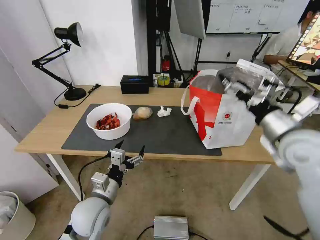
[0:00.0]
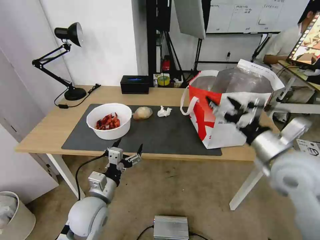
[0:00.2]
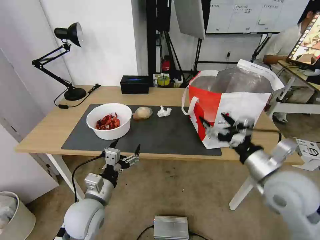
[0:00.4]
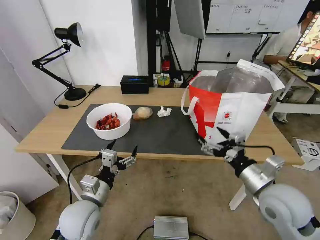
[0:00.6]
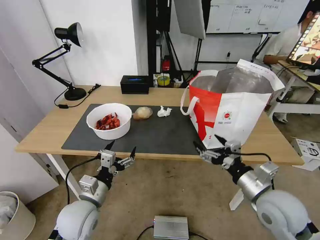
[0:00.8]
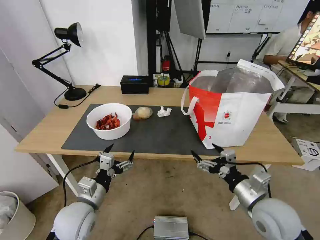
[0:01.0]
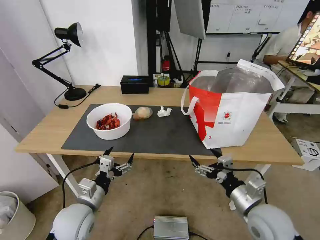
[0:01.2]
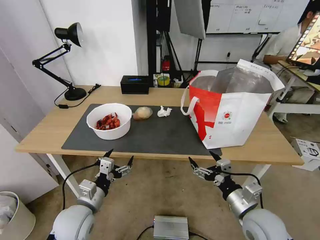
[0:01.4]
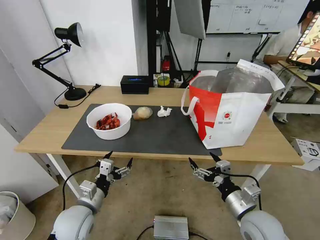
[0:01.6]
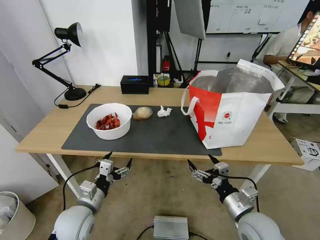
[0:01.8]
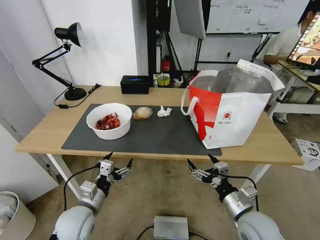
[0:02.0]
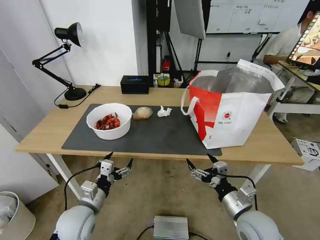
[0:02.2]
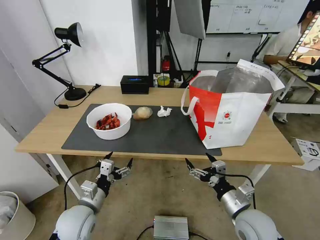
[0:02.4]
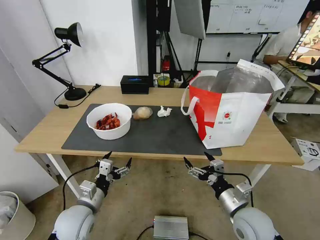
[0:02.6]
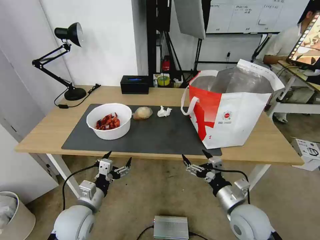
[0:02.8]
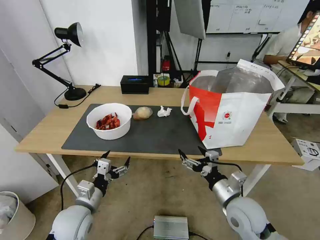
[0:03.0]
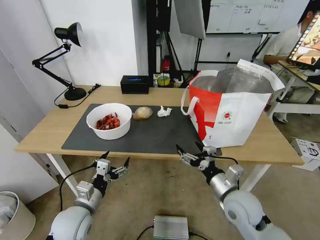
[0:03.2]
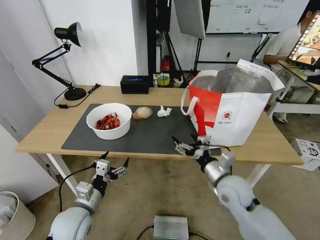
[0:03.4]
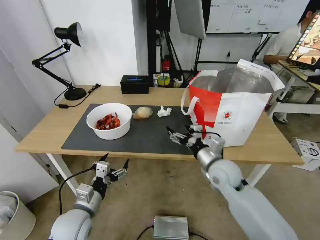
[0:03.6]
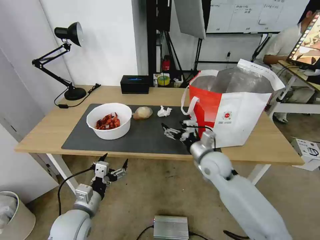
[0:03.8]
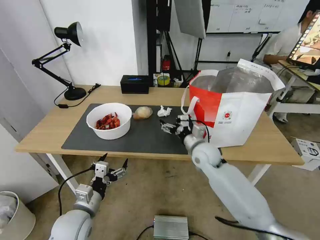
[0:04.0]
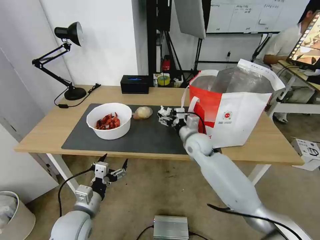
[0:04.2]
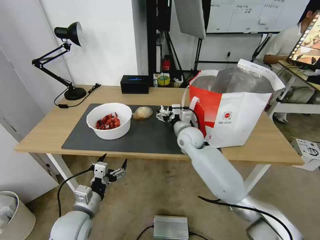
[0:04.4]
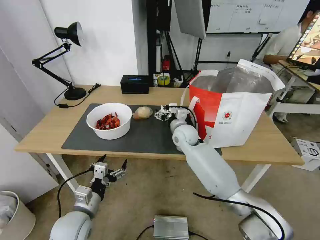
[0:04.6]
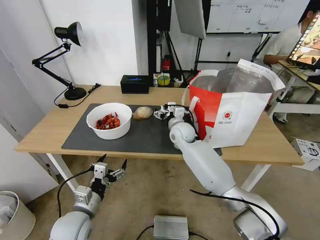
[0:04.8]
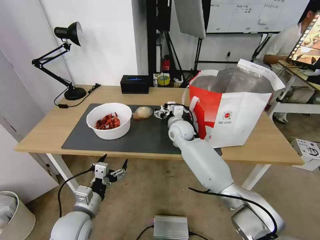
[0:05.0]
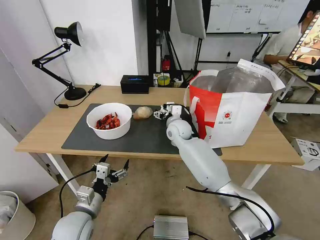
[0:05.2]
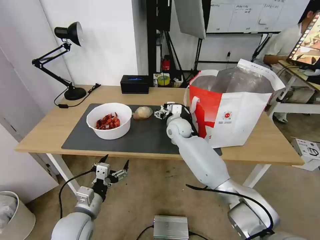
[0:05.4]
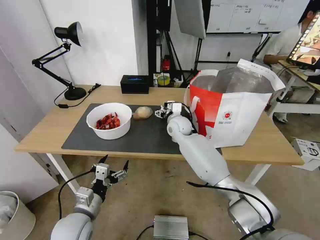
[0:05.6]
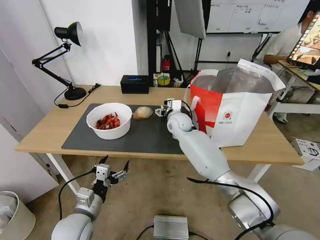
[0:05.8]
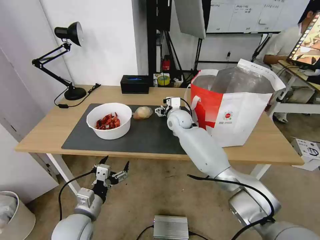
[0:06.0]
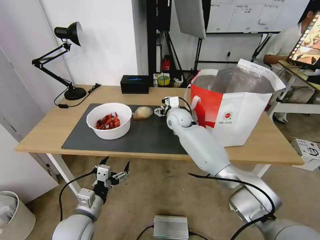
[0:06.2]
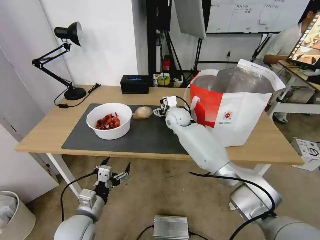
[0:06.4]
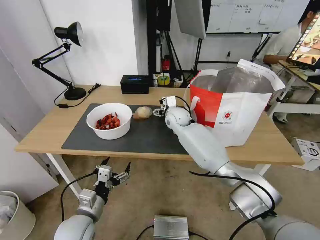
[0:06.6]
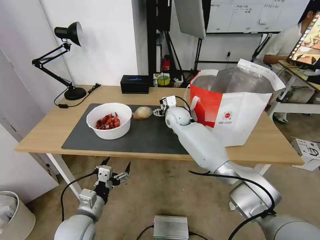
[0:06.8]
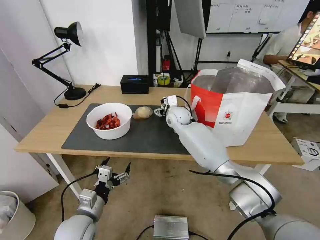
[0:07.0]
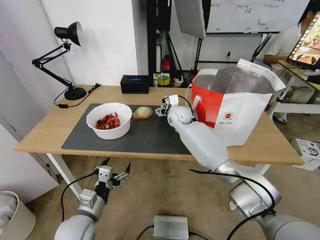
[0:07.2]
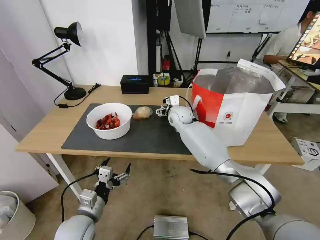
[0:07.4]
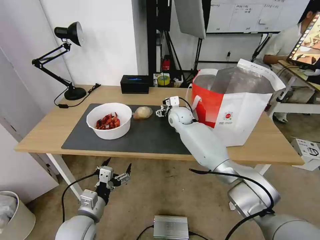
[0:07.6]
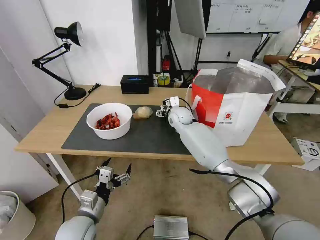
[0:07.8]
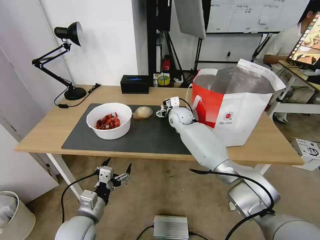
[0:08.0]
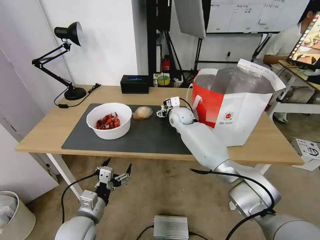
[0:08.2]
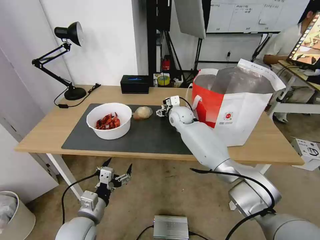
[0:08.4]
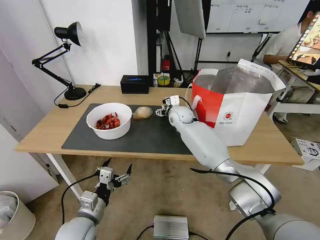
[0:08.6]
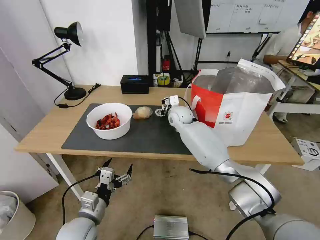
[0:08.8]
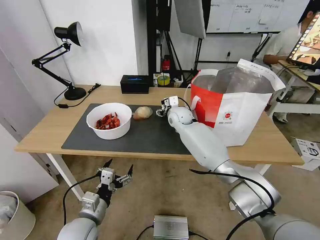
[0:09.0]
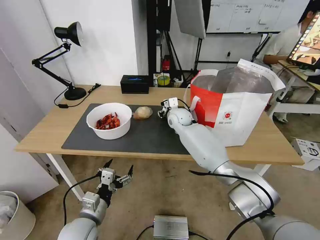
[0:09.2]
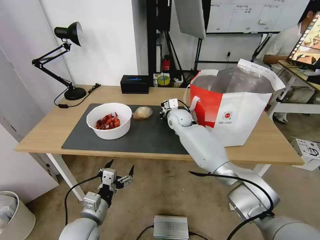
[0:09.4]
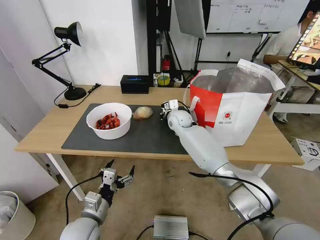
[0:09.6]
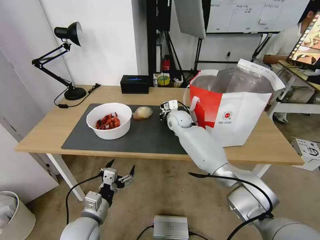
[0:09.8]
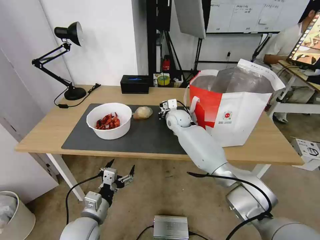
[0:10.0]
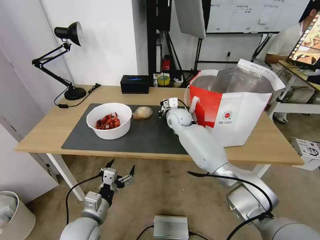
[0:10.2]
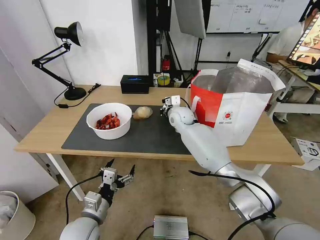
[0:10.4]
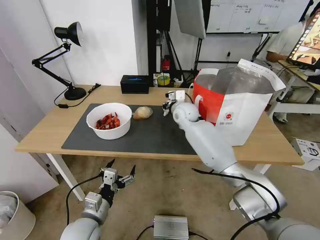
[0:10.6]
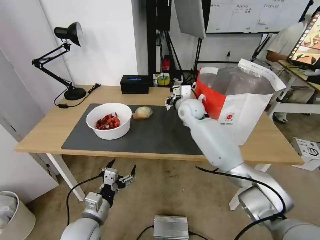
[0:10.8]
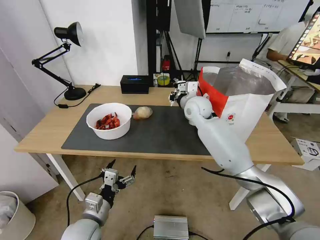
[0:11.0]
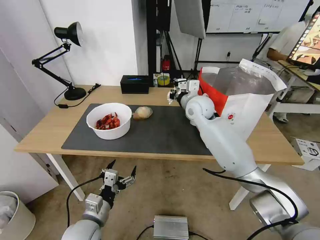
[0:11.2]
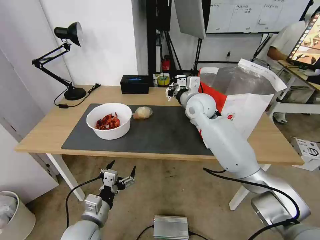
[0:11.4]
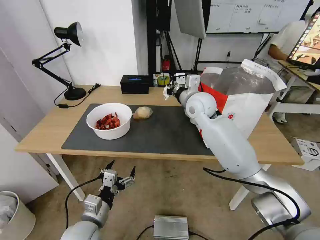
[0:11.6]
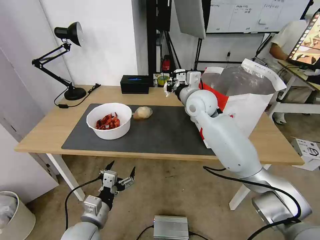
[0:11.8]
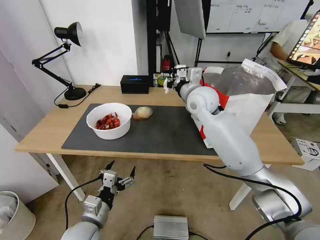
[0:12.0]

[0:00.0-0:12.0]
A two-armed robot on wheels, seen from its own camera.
Task of the whole recording: Pick up the trash from the table and place it into the takeout bag.
0:00.0 to 0:01.6: The left gripper moves approximately 5 cm; the right gripper is displaced downward and backward by about 25 cm.
0:01.6 to 0:03.0: The grippers stay close to where they were, moving slightly.
0:03.0 to 0:04.4: The right gripper goes roughly 30 cm forward and to the left.
0:04.4 to 0:06.0: The right gripper heads forward, covering about 10 cm.
0:06.0 to 0:07.6: The grippers stay close to where they were, moving slightly.
0:07.6 to 0:09.0: Neither gripper changes place.
0:09.0 to 0:10.4: The right gripper closes up.
0:10.4 to 0:12.0: The right gripper goes some 15 cm upward and backward.

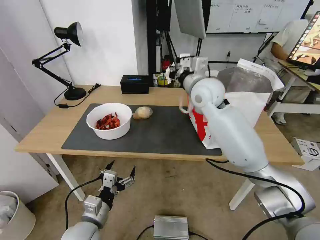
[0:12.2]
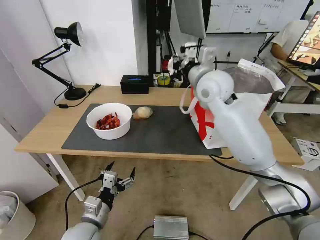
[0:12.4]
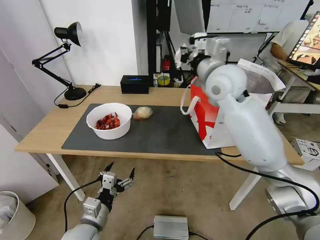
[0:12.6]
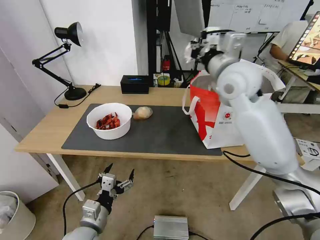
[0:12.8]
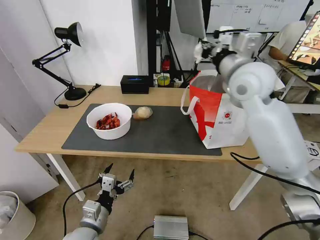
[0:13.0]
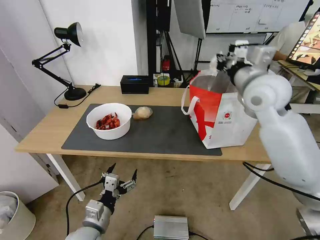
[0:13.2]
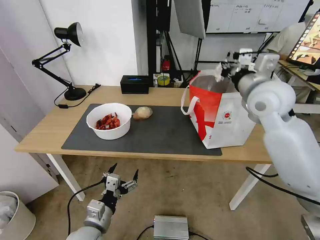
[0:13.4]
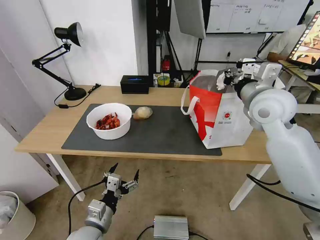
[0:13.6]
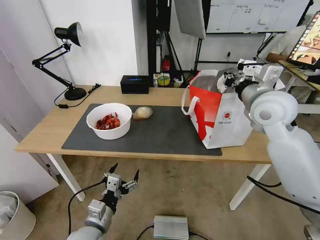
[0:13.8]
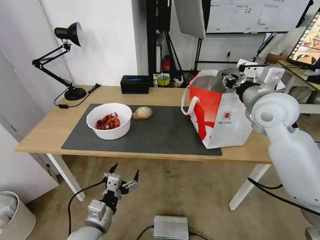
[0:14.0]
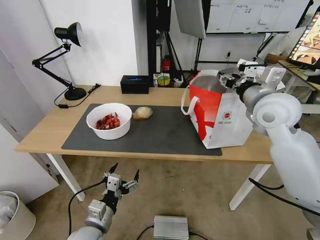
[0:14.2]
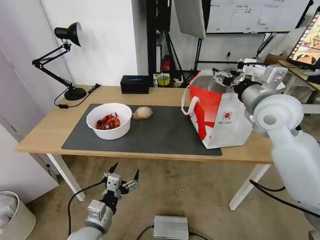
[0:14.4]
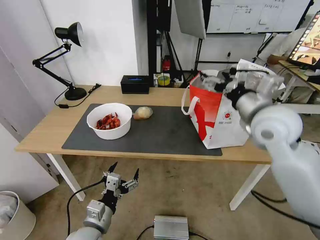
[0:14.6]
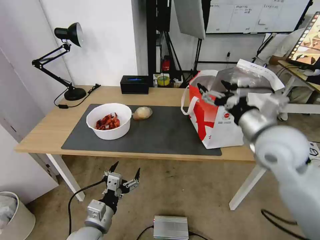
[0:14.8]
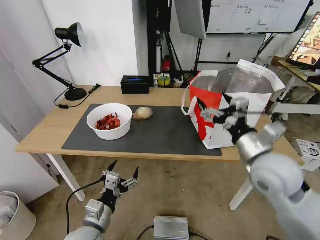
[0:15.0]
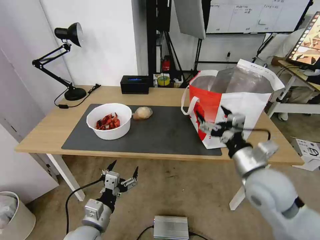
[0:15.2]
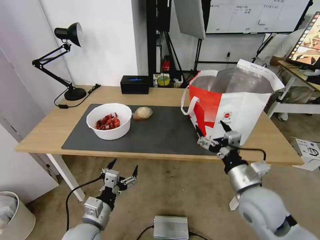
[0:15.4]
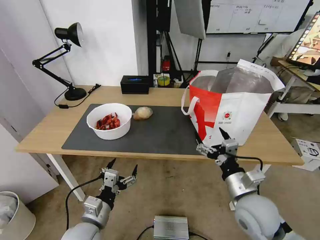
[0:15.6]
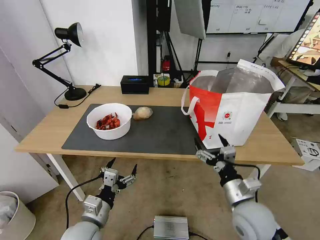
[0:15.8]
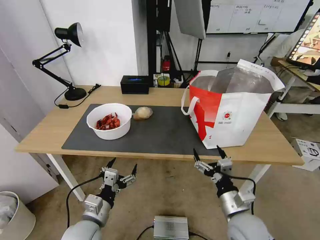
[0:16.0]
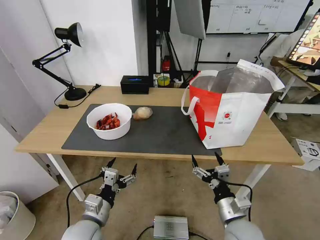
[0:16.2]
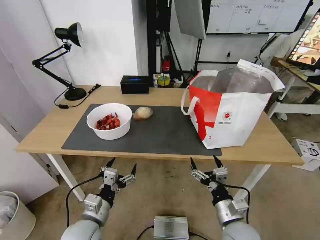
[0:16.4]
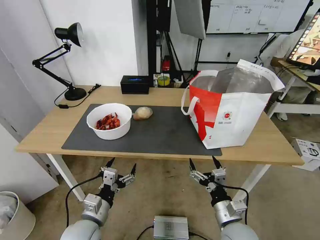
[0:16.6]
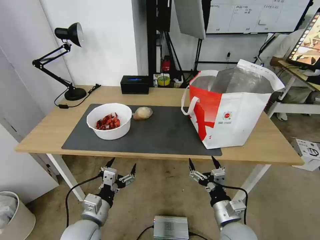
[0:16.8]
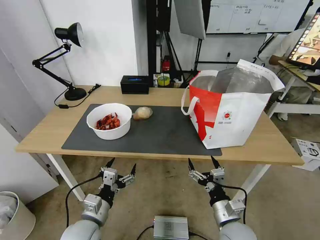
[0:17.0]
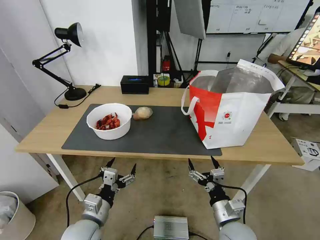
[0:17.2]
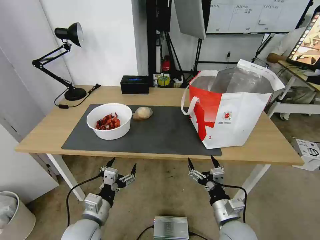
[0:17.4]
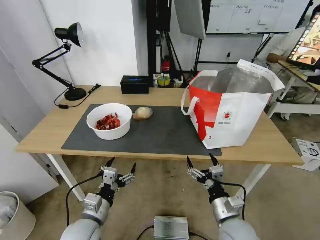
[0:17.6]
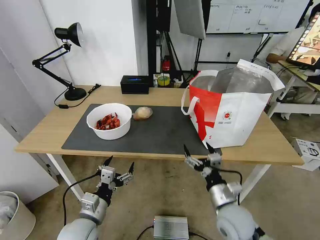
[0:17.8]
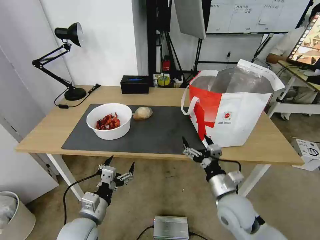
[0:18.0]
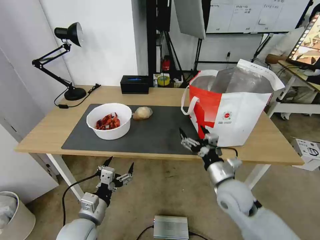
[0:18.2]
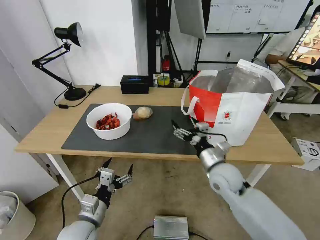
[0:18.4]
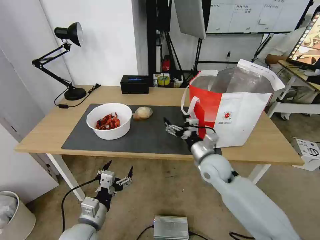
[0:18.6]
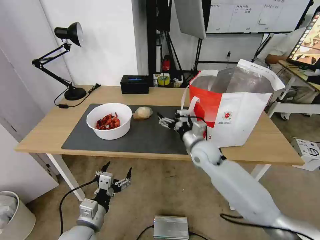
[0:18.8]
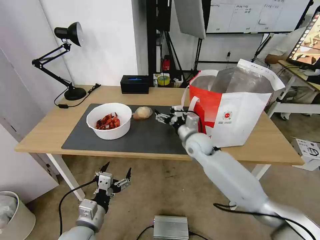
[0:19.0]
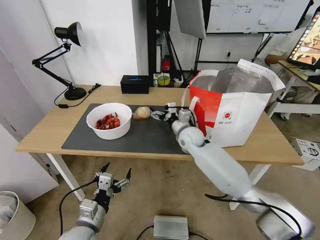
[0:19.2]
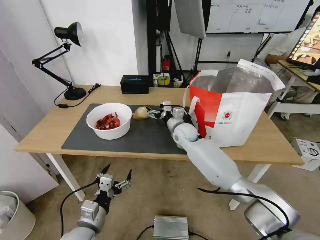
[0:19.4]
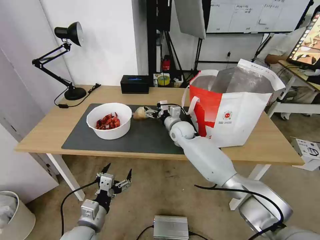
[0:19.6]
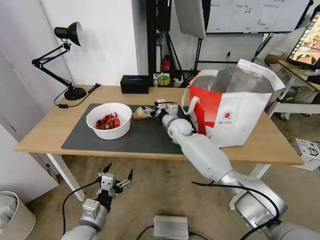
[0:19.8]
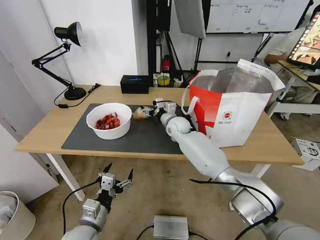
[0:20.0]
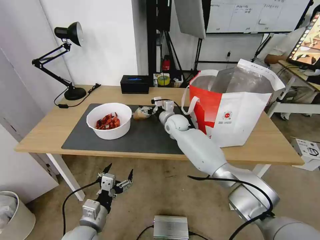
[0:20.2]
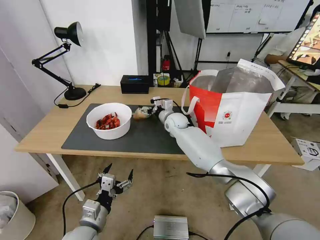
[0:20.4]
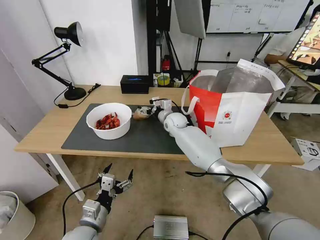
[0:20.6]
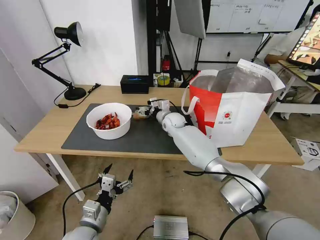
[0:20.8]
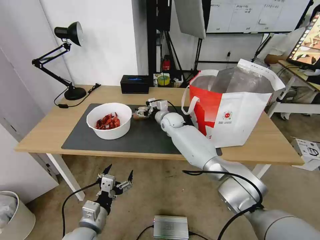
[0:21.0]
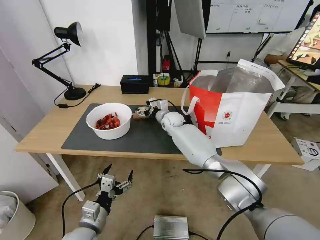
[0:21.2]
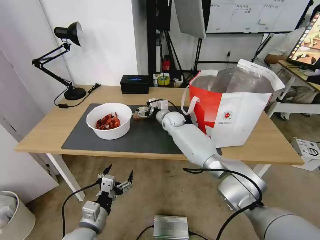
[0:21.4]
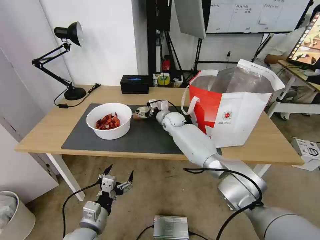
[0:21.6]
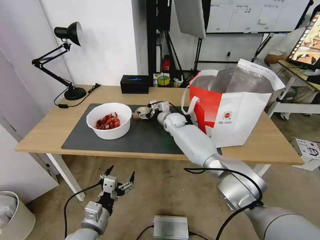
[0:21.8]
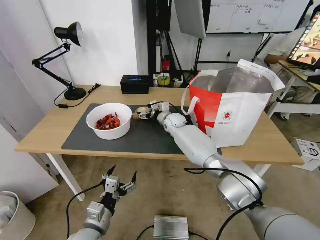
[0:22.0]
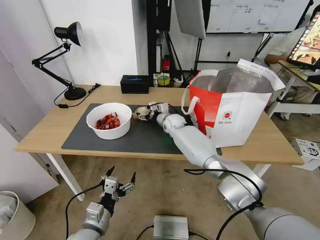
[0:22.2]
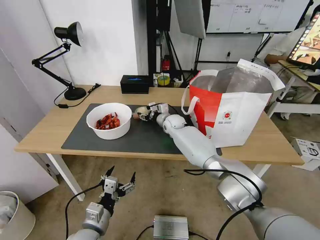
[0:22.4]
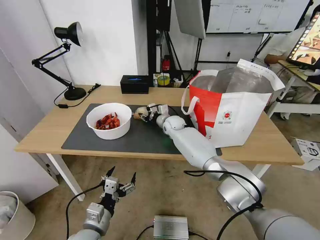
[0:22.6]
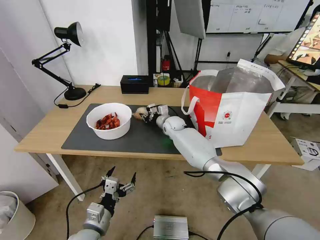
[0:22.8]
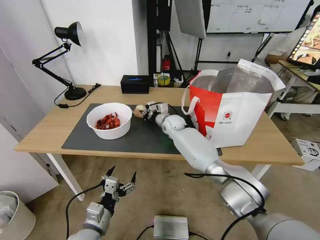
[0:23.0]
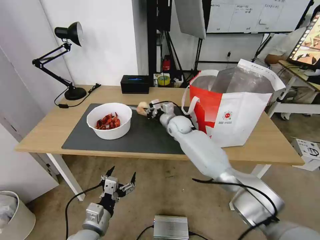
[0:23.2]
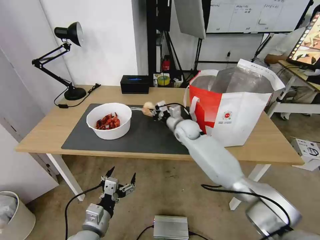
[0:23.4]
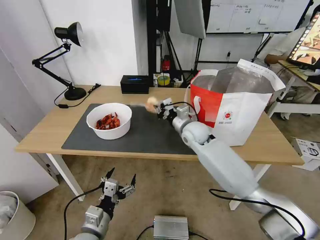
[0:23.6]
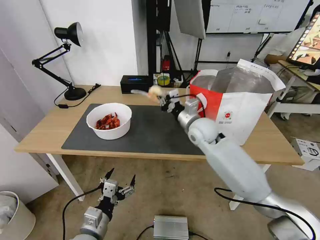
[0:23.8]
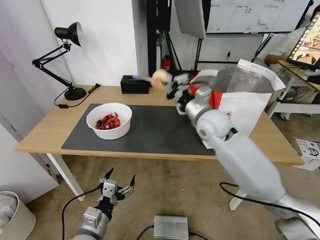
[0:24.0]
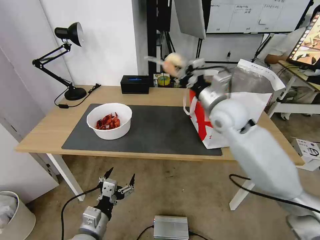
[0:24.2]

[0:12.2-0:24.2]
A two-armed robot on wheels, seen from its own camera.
Task of the whole recording: Pick up the trash from the table and place it into the takeout bag.
0:12.2 to 0:13.8: The right gripper moves to the right and backward, some 15 cm.
0:13.8 to 0:15.2: The right gripper goes roughly 20 cm backward and downward, and opens up.
0:15.2 to 0:16.6: The right gripper shifts roughly 20 cm downward and backward.
0:16.6 to 0:18.2: The right gripper is displaced forward and upward by approximately 10 cm.
0:18.2 to 0:19.8: The right gripper is displaced forward and to the left by roughly 30 cm.
0:19.8 to 0:21.2: The right gripper heads forward, covering approximately 5 cm.
0:21.2 to 0:22.6: The right gripper closes up.
0:22.6 to 0:24.2: The right gripper shifts approximately 30 cm upward, backward and to the right, and closes its fingers.
